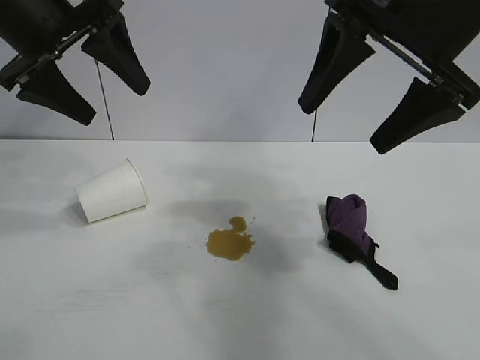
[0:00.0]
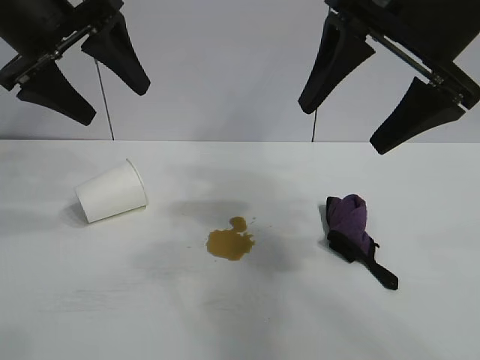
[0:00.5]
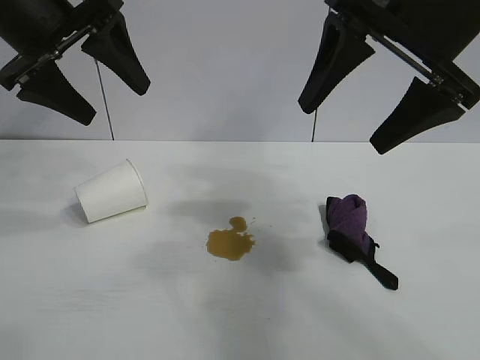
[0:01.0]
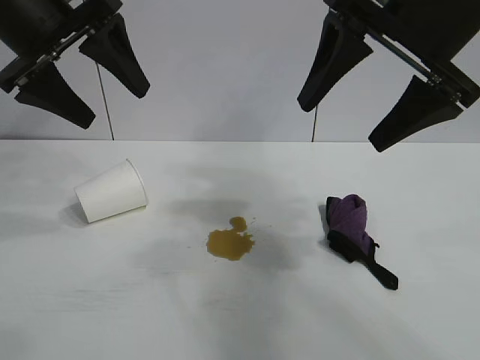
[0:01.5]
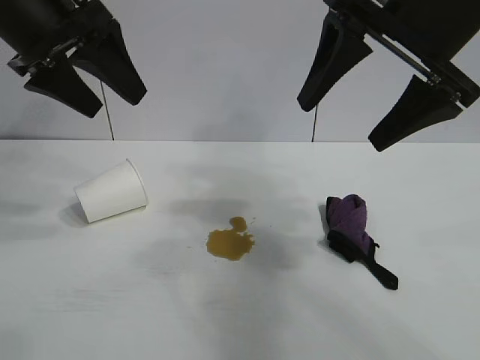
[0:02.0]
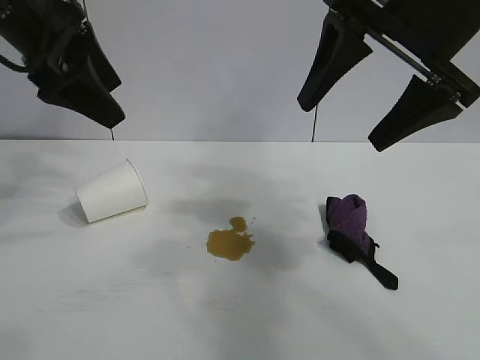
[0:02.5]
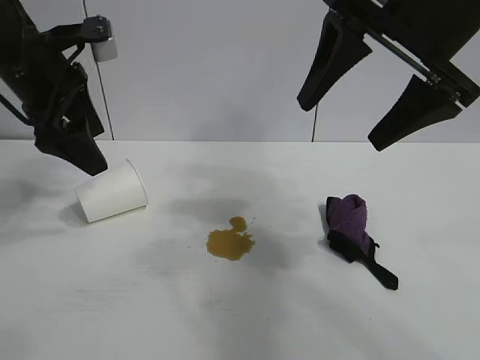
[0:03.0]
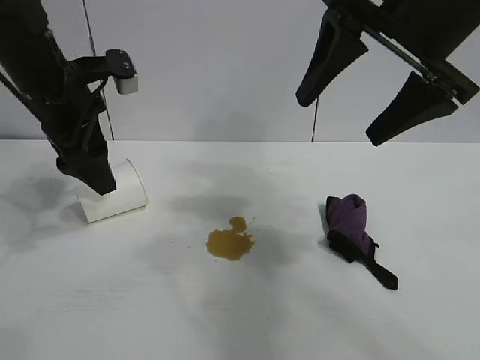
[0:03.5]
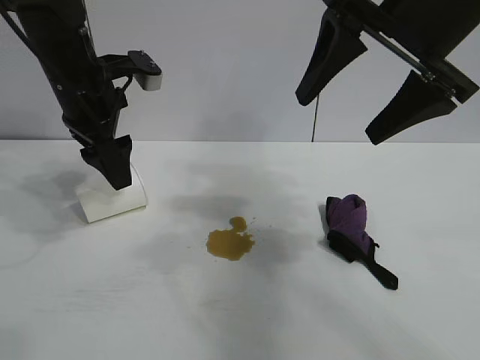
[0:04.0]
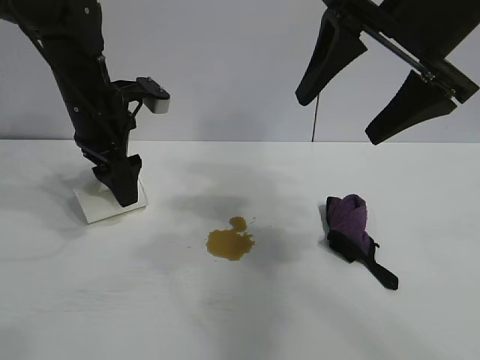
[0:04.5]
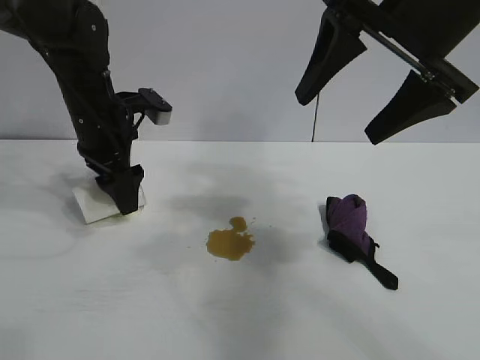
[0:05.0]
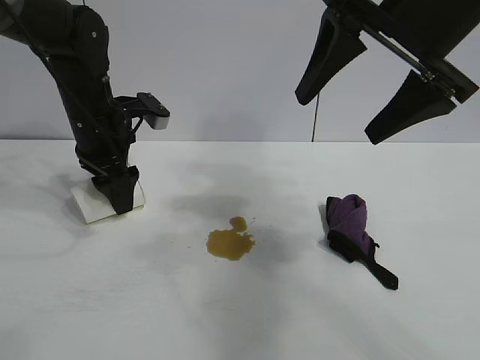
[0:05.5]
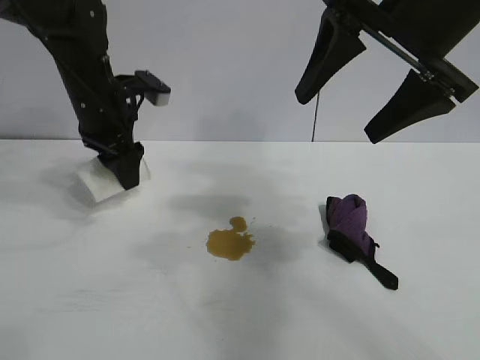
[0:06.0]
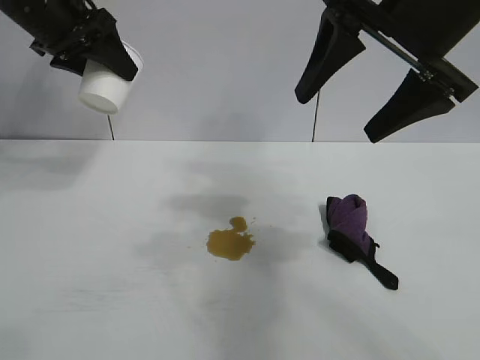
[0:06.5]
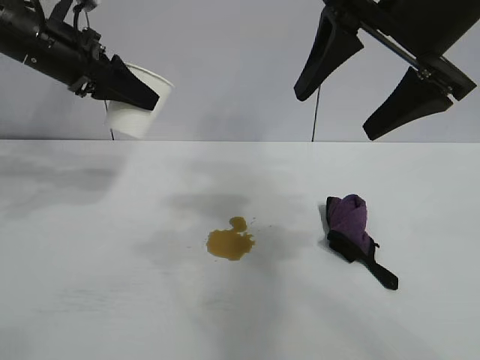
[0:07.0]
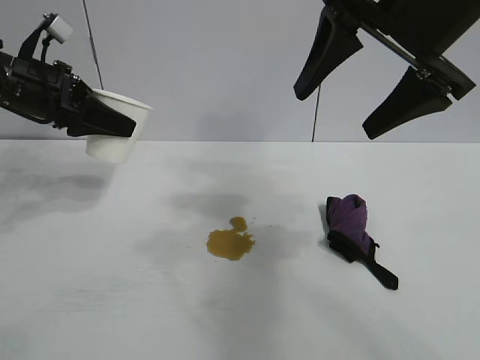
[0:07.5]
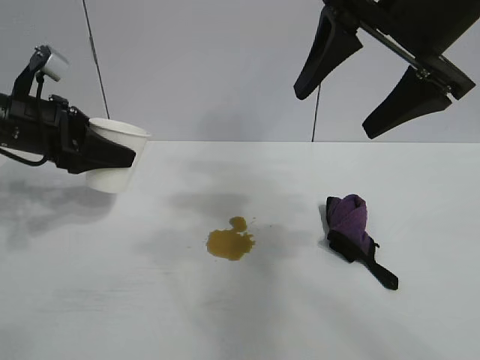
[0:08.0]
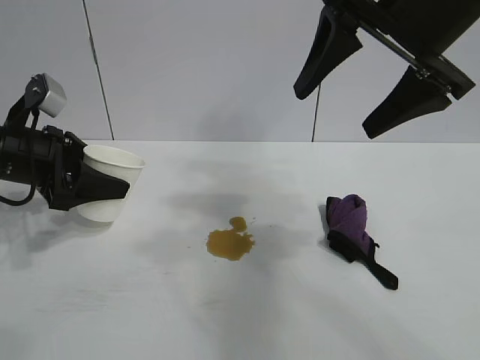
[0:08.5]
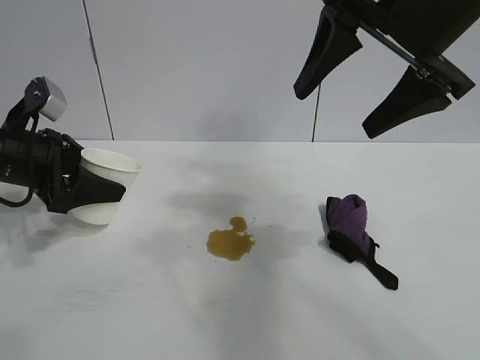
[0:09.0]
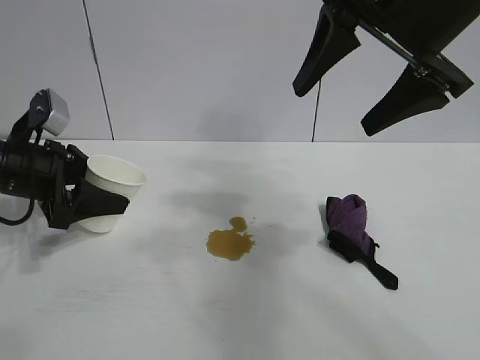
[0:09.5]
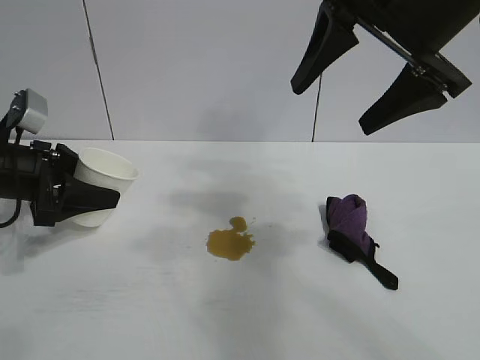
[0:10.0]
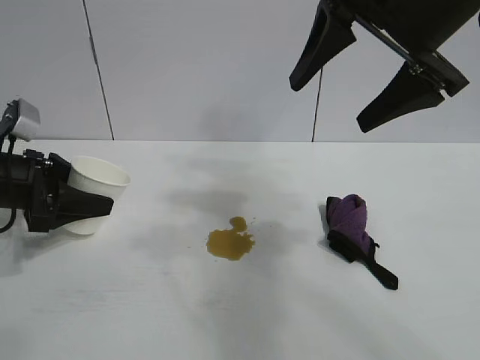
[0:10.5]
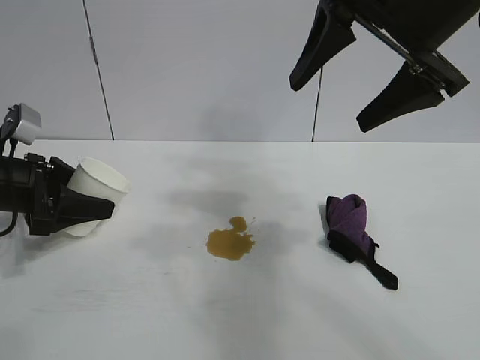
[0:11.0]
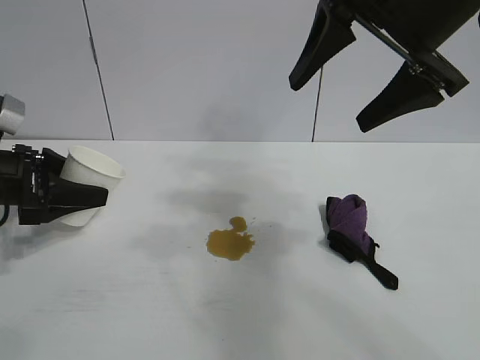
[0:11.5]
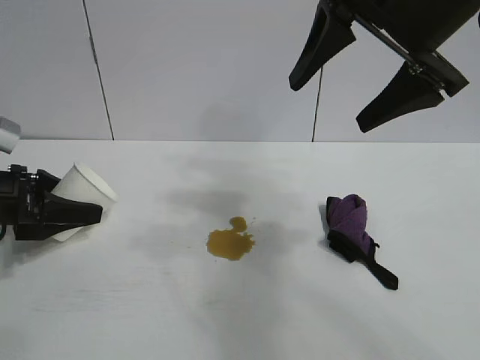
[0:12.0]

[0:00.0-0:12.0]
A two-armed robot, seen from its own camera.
Task of the whole recording: the left gripper pick up the fallen cup and place it upright, the right gripper grasp the black rag and wipe the stain on the table, the right gripper put the black rag back in its original position.
Step, 0:02.0 to 0:05.5: Grasp the paper cup with left gripper.

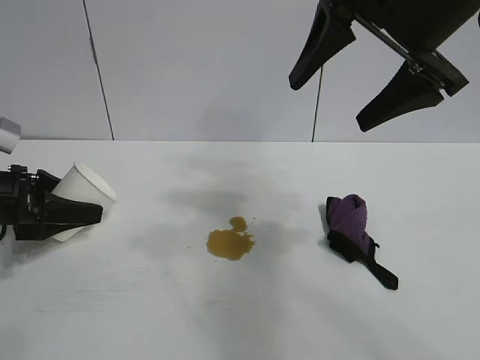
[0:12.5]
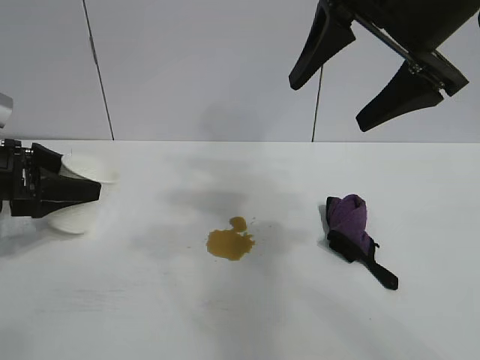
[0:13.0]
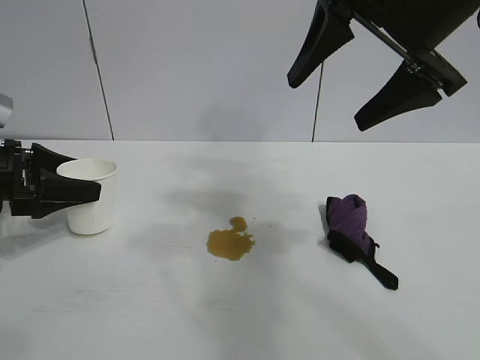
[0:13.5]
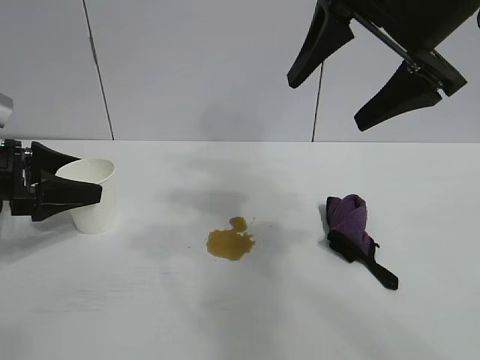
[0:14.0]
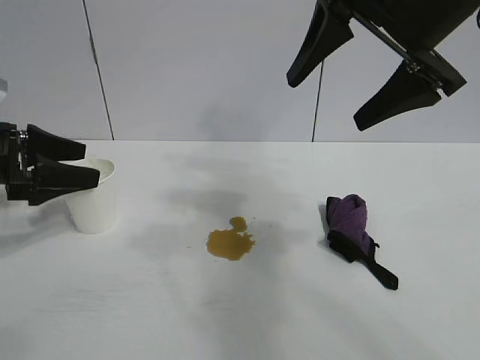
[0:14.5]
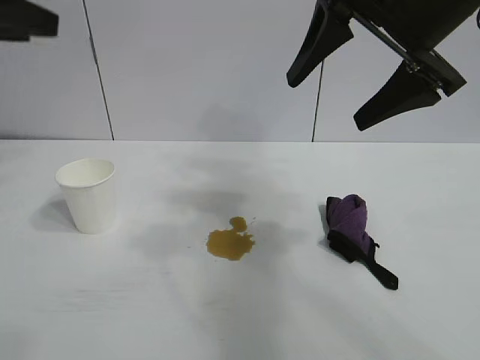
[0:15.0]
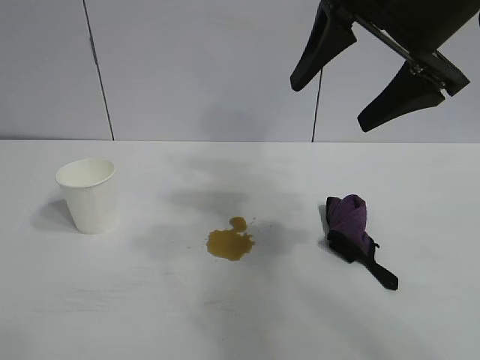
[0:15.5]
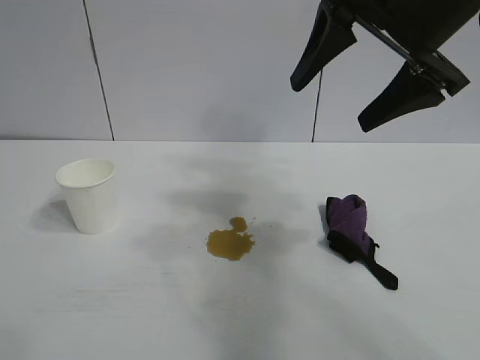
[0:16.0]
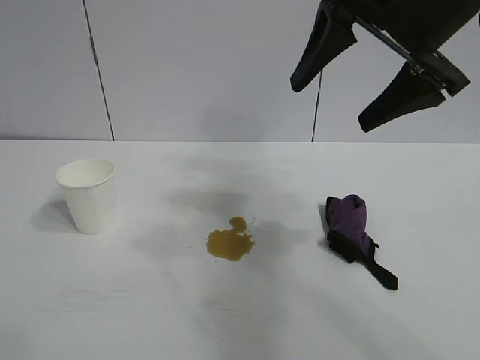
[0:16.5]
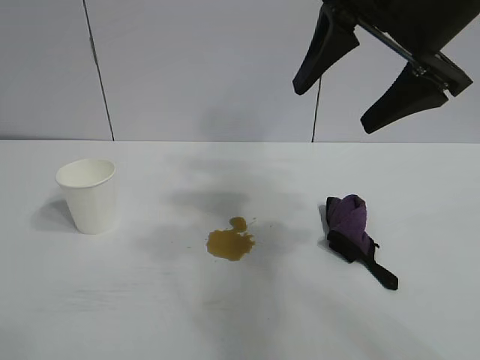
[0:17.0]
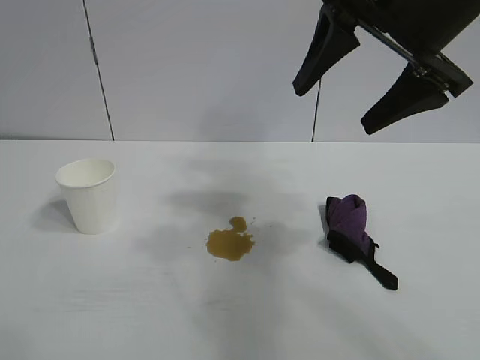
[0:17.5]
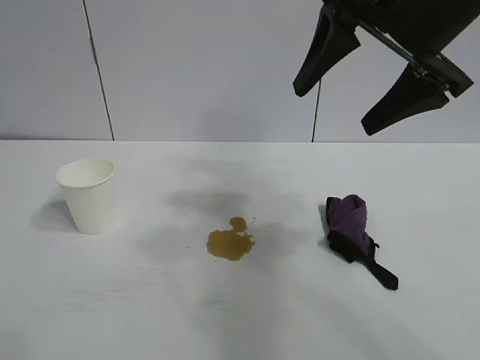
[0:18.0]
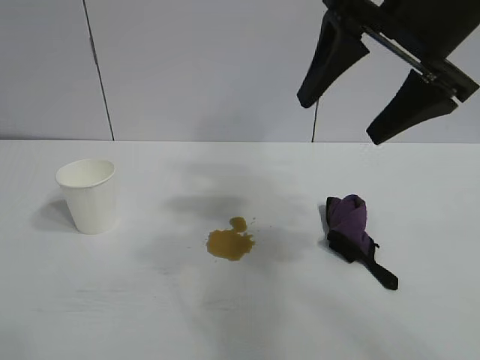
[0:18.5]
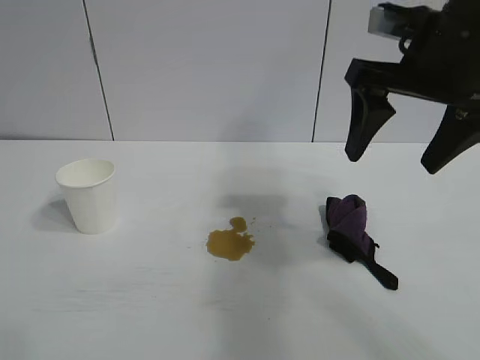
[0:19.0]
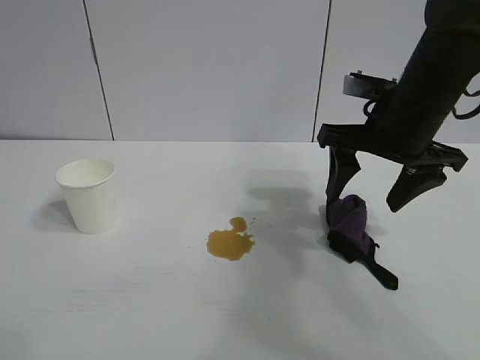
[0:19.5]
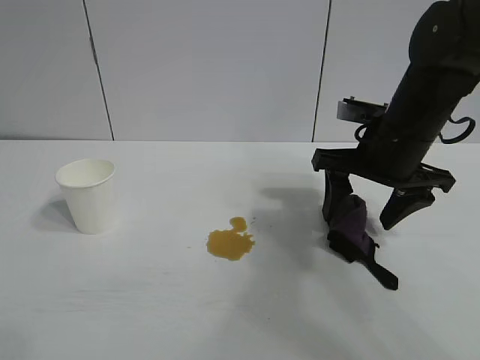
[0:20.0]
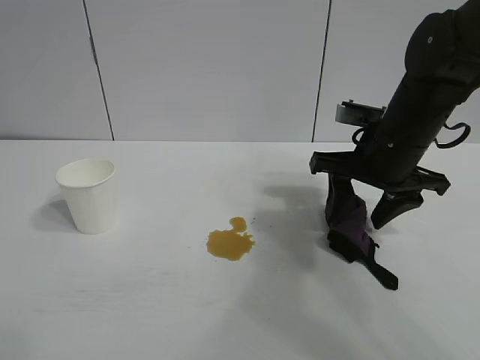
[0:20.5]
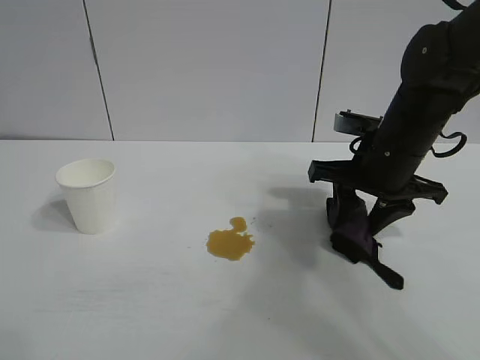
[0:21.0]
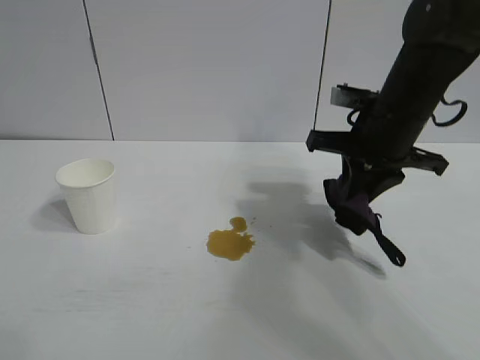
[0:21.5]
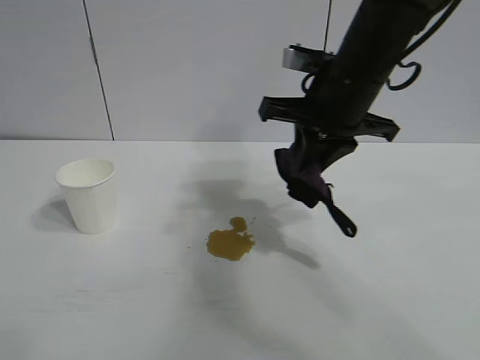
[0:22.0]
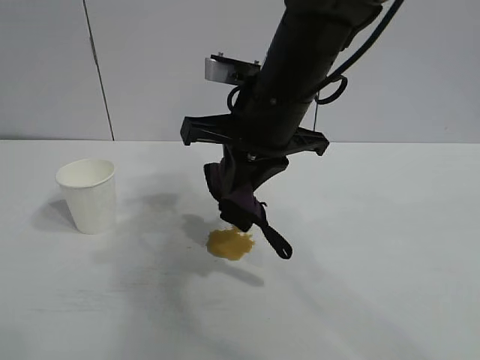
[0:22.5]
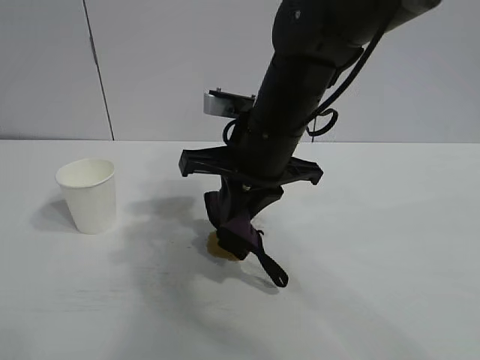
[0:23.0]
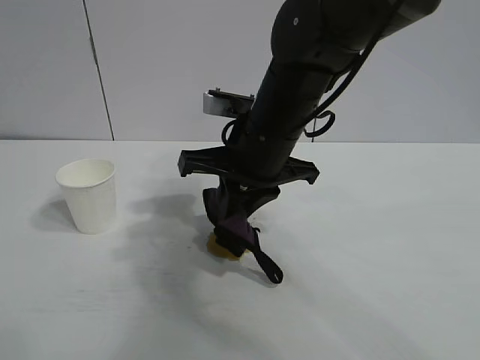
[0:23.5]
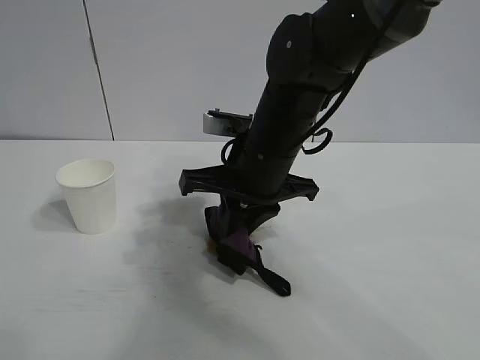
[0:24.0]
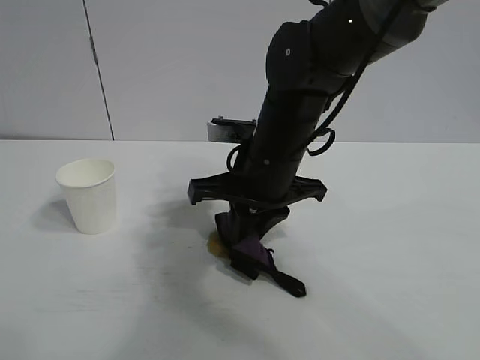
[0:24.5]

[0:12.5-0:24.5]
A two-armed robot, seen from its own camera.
Task of the whole recording: the left gripper pick up the fallen cup and place it upright, the right gripper grasp the black rag and wipe the stain on the table, the right gripper put the black rag back in its original position.
Step, 0:14.0 to 0:21.0: Grasp the rag with right gripper.

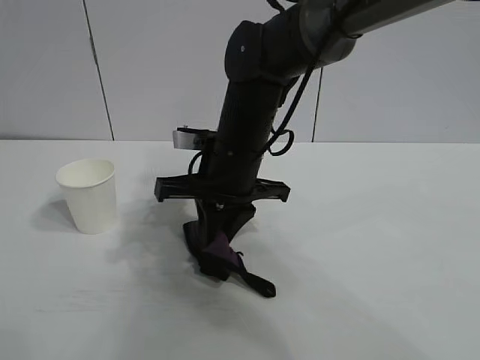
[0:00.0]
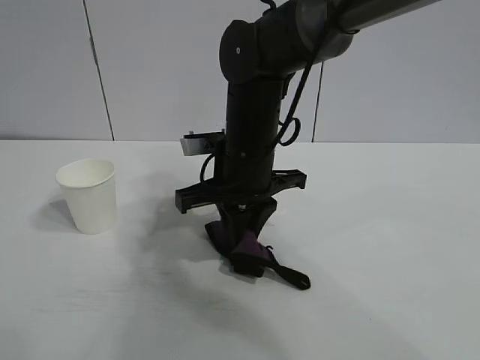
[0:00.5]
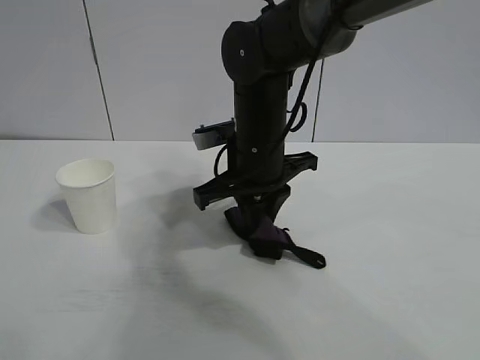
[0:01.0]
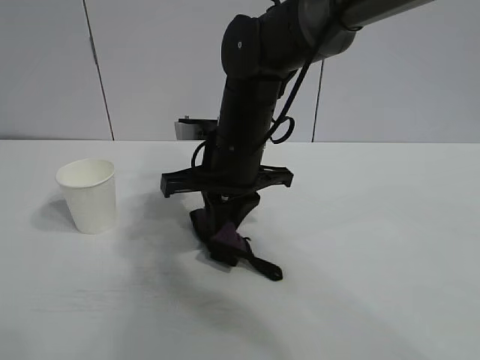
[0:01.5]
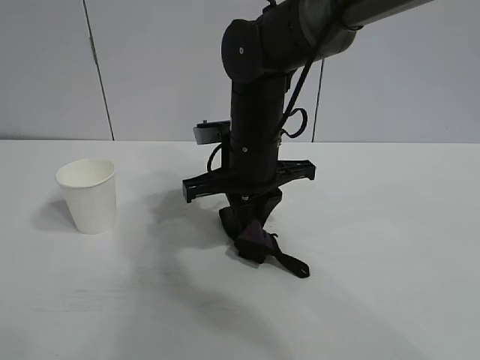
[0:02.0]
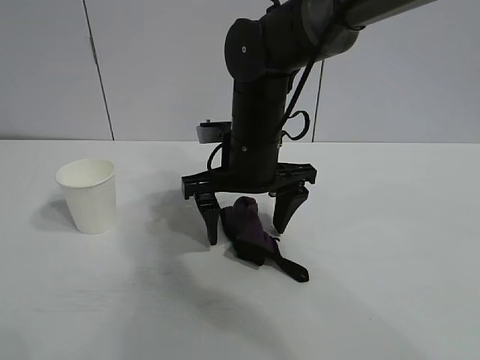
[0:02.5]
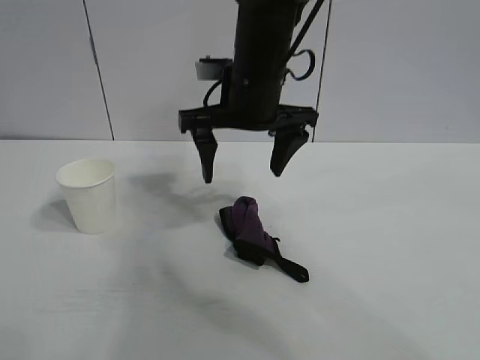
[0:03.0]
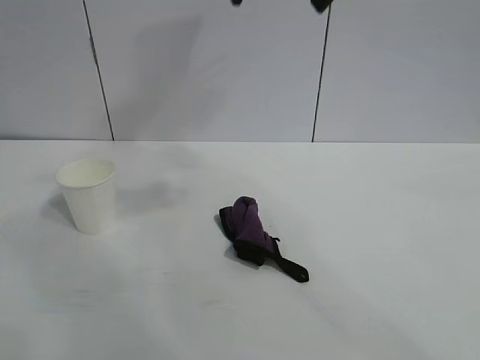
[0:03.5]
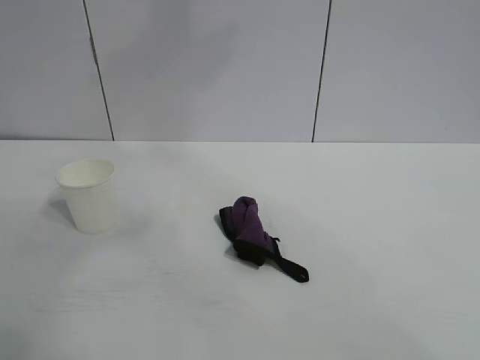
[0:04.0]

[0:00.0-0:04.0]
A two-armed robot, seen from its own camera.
Task of the whole recording: the left gripper pick up the fallen cup and place it upright, the right gripper grasp the black rag and wipe the stain on the table, the right gripper put the black rag back in its original position.
Step, 0:01.5 to 0:02.0: Place the rag on the table with right gripper.
